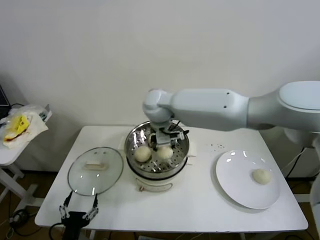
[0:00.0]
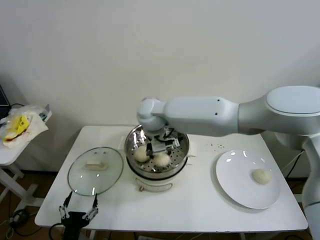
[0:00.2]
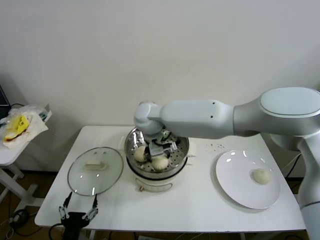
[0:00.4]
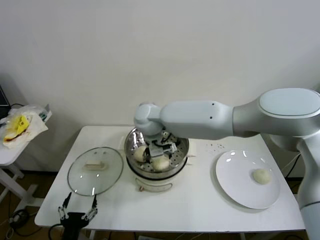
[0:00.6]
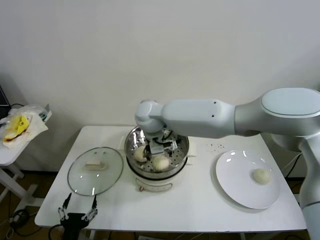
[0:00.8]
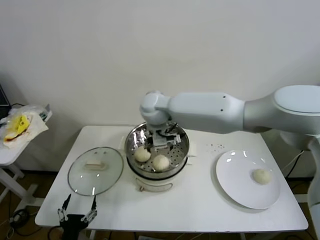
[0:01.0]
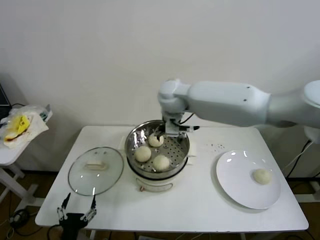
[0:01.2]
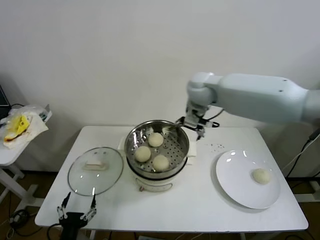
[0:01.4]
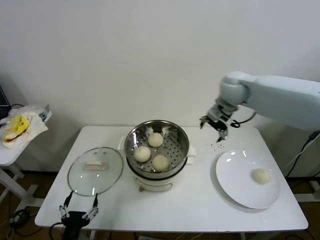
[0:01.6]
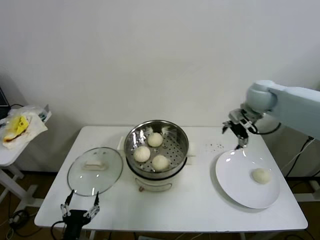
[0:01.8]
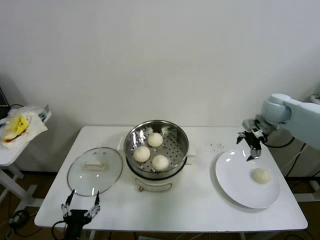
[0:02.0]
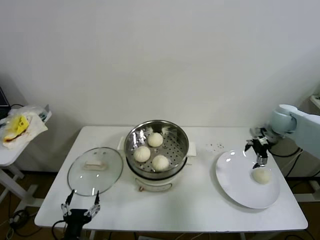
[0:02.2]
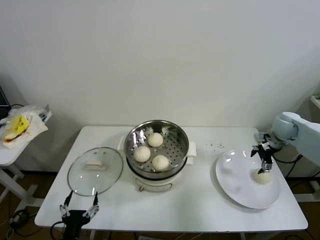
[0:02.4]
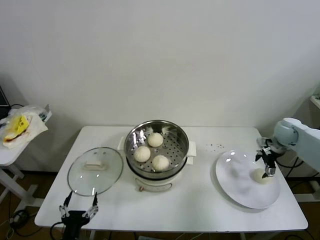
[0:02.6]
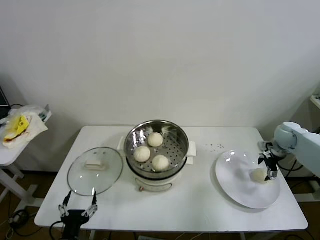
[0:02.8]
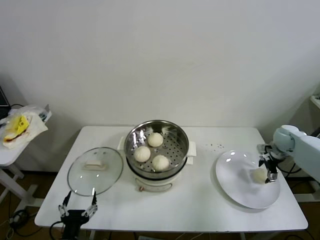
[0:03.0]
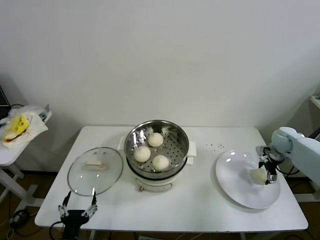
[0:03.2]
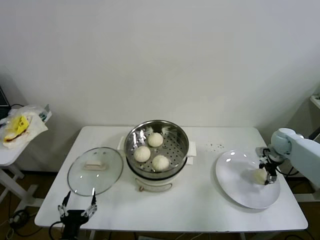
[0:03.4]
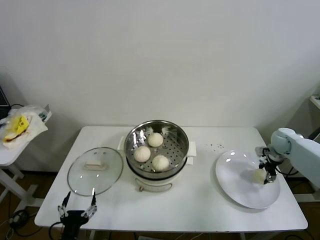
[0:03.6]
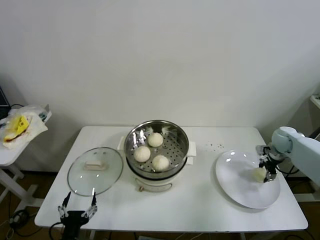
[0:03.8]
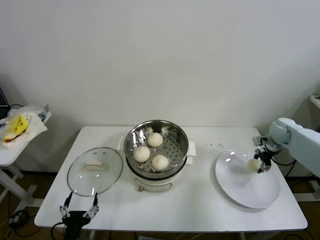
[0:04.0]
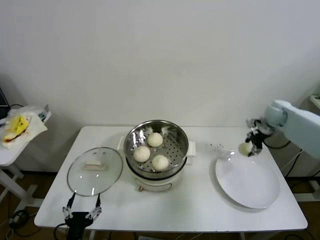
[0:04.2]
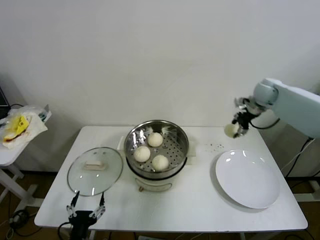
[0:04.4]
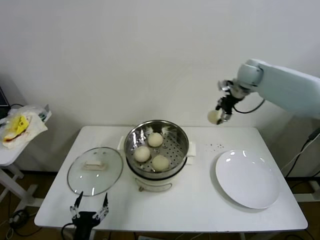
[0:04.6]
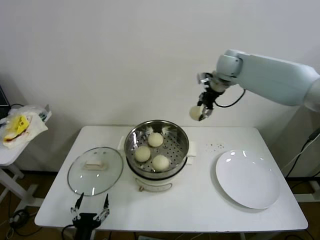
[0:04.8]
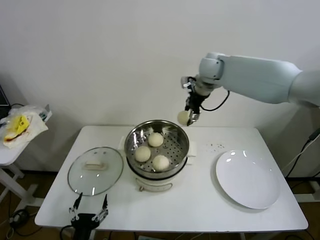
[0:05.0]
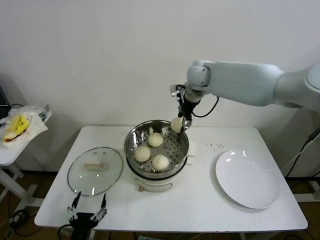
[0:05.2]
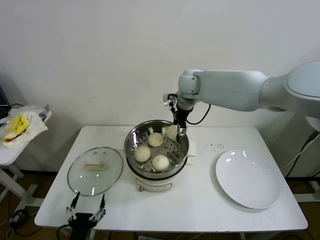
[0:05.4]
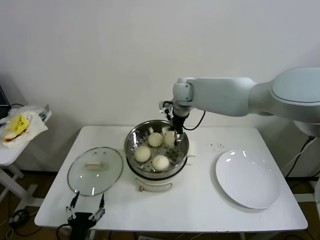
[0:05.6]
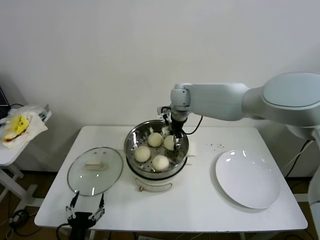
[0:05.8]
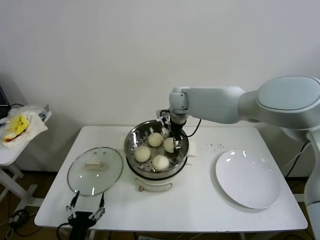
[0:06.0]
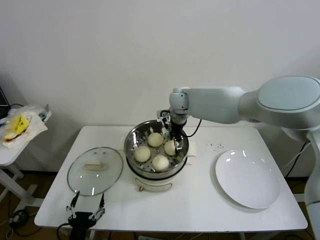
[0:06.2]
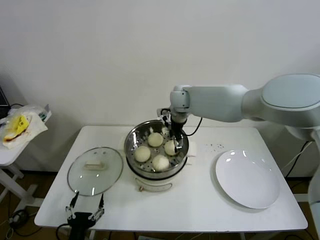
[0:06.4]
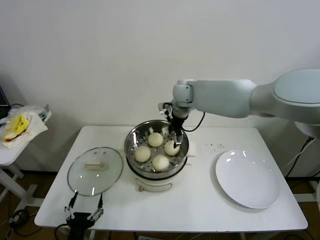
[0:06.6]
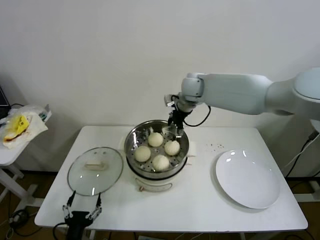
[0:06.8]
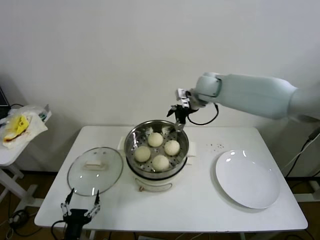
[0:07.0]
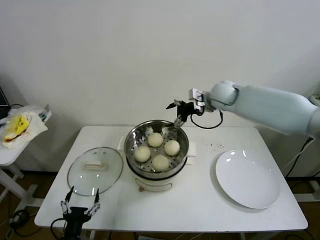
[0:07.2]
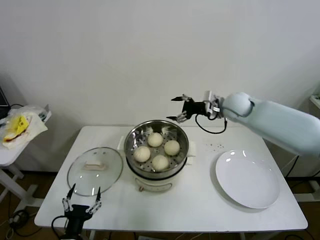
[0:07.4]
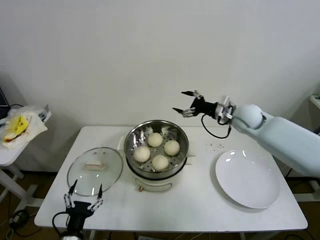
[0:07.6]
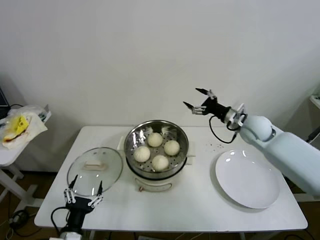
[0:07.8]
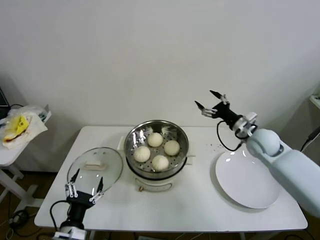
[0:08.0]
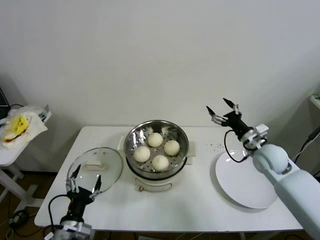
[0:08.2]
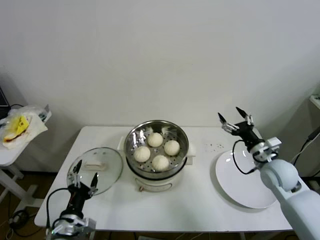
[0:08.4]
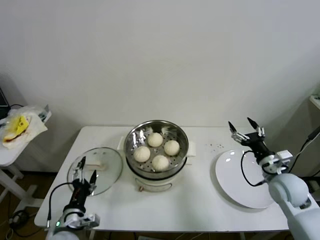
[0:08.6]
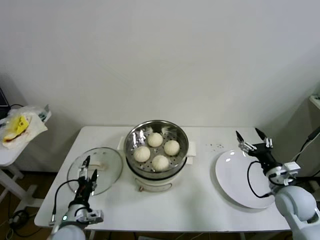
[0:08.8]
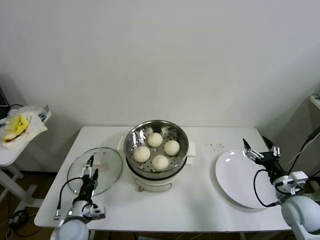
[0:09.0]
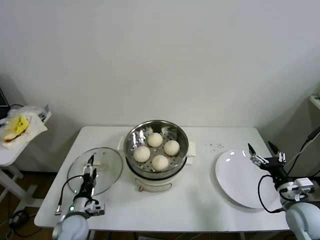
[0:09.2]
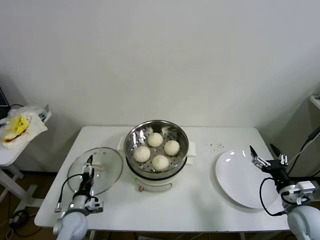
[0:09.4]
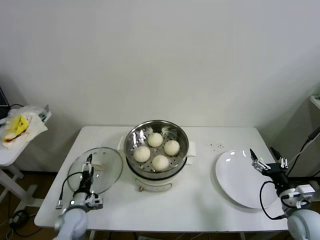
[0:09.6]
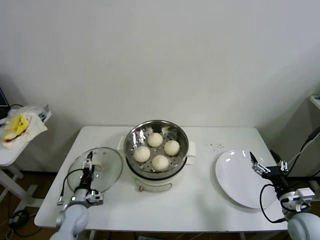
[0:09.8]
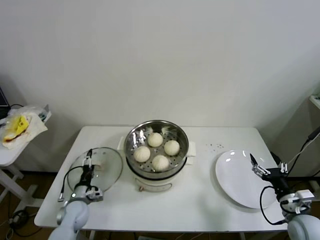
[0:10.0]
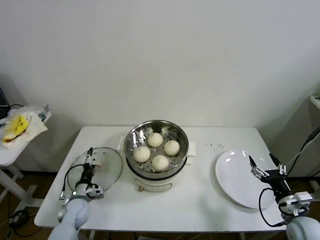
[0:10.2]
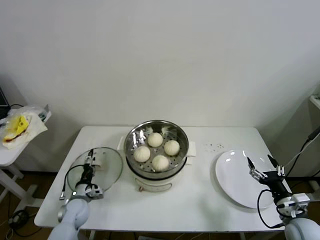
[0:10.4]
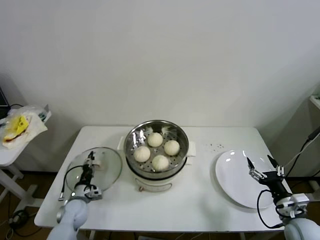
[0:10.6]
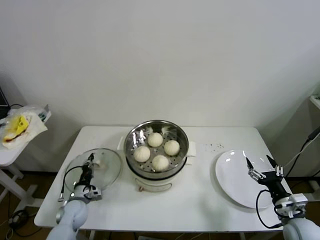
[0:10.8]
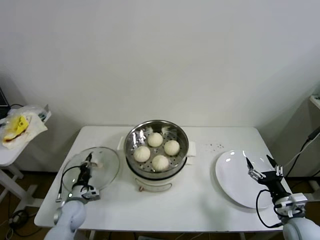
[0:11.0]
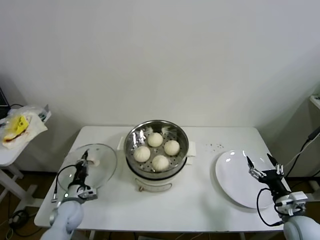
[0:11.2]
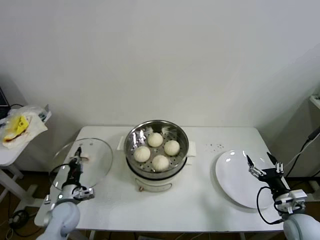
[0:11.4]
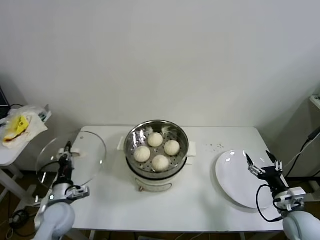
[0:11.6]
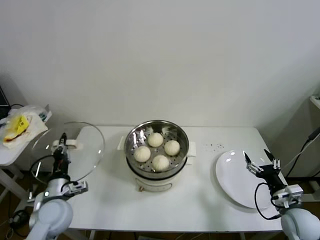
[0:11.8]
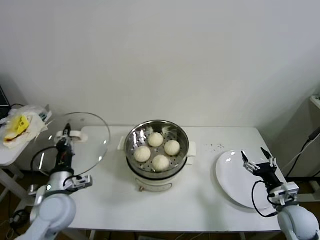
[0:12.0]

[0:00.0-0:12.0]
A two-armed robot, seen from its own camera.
Step, 0:00.6 to 0:03.2: Grasp the baozi in the plate with right gripper.
Step, 0:03.6 to 0:06.0: Place the baozi on the steamer with right gripper.
Step, 0:06.2 to 0:10.8: Grasp the pot lid with left gripper.
0:00.0 to 0:01.6: The right gripper shifts roughly 25 cm to the right, and opens up.
0:01.6 to 0:03.0: The right gripper travels to the right and downward by approximately 30 cm.
0:03.0 to 0:04.4: The right gripper shifts some 20 cm upward, to the left and forward, and closes up.
0:04.4 to 0:06.0: The right gripper travels to the left by some 30 cm.
0:06.0 to 0:07.6: The right gripper heads to the right, covering about 20 cm, and opens up.
0:07.6 to 0:09.0: The left gripper is displaced forward by about 10 cm, while the right gripper travels backward, downward and to the right by roughly 30 cm.
0:09.0 to 0:10.4: The left gripper goes roughly 10 cm forward and downward. Meanwhile the right gripper moves backward, approximately 5 cm.
0:10.4 to 0:12.0: The left gripper travels upward by about 20 cm, and closes up.

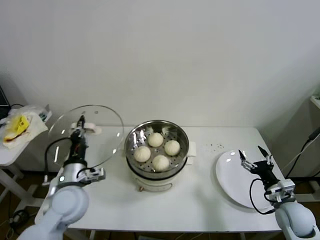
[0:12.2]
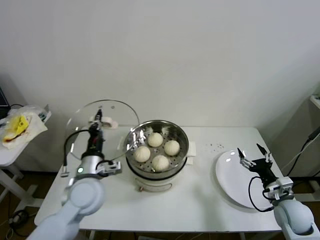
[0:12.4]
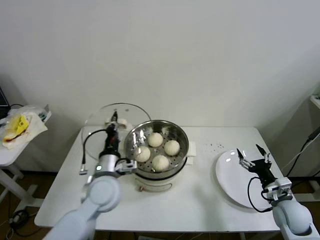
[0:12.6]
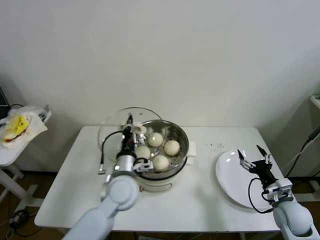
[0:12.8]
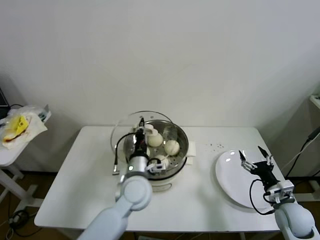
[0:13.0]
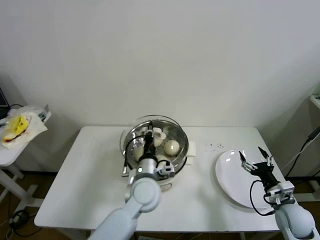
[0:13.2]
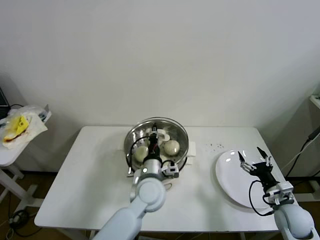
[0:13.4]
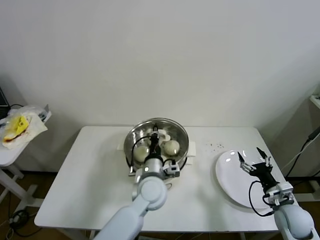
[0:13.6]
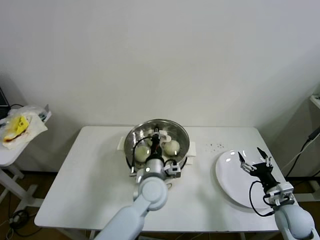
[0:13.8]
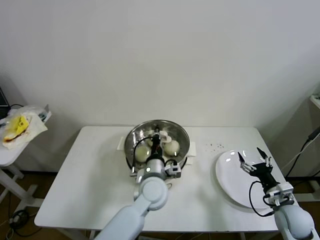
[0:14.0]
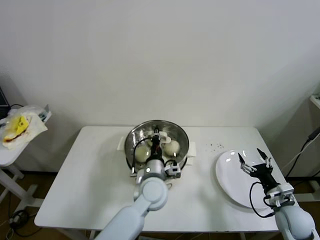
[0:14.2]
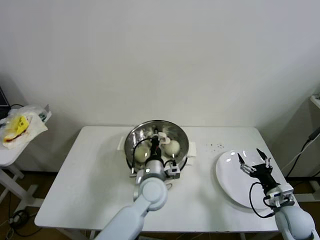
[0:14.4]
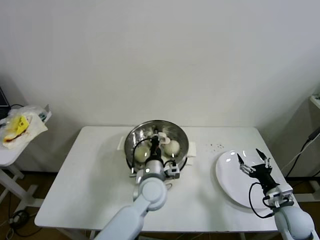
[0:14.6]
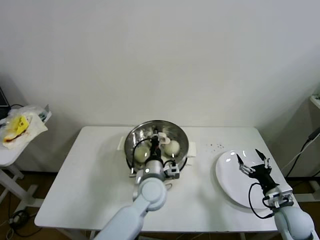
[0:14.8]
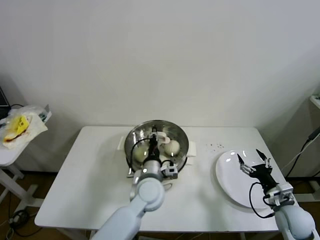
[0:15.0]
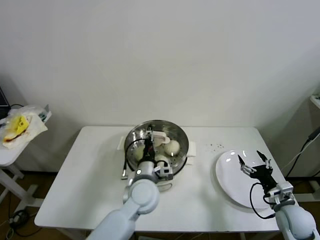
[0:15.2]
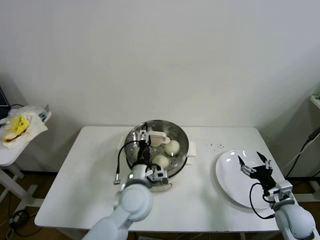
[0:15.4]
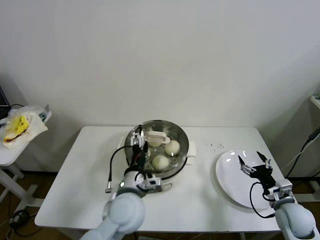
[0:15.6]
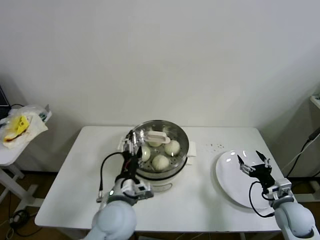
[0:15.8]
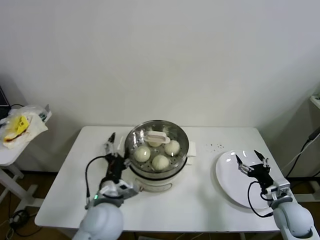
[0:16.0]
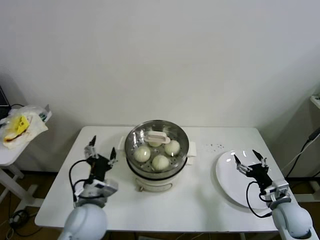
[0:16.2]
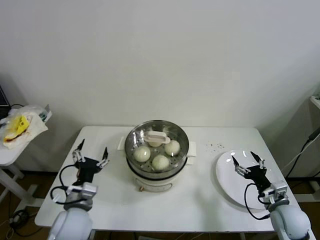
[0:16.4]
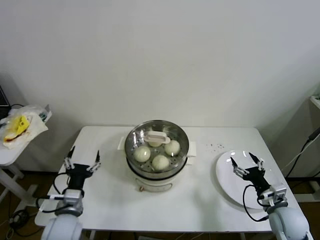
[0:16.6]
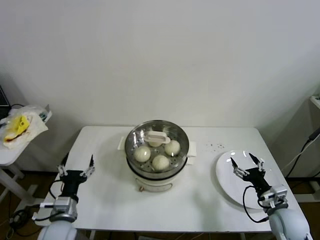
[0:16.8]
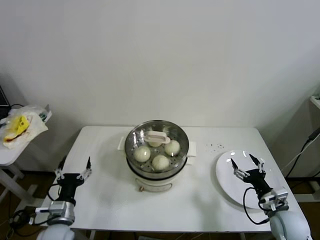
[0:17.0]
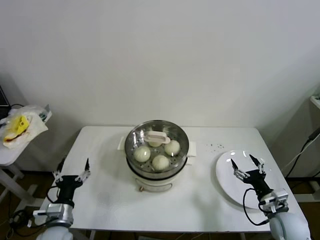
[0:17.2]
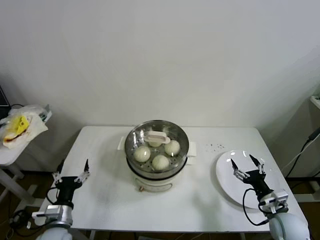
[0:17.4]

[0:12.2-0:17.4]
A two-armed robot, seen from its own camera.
Step, 0:12.2 to 0:14.8: Place the pot lid on the steamer with left gripper.
0:12.2 to 0:14.0: The left gripper travels to the right by about 25 cm.
0:14.0 to 0:15.6: The left gripper heads to the left and backward, covering approximately 10 cm, and opens.
0:15.6 to 0:17.4: The left gripper is displaced to the left and downward by approximately 25 cm.

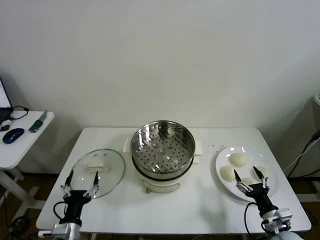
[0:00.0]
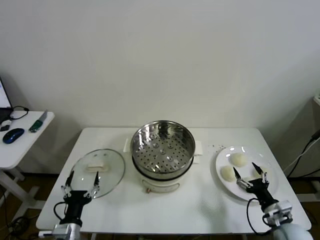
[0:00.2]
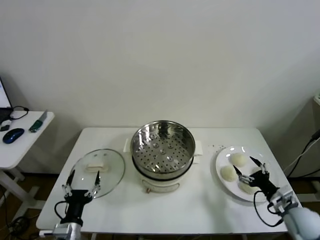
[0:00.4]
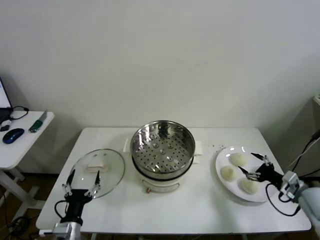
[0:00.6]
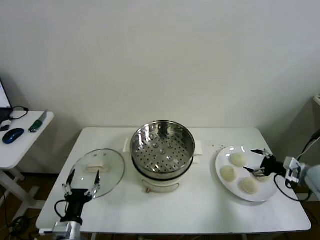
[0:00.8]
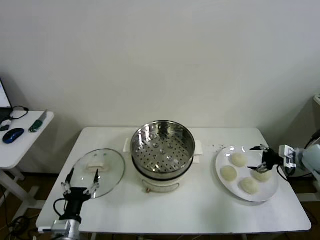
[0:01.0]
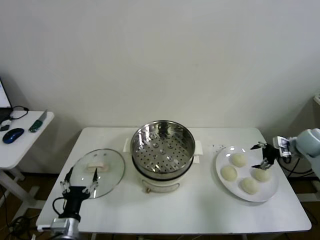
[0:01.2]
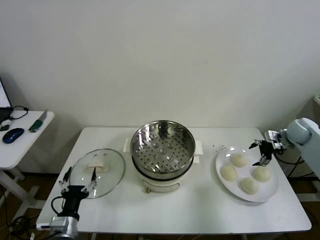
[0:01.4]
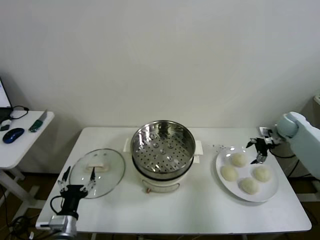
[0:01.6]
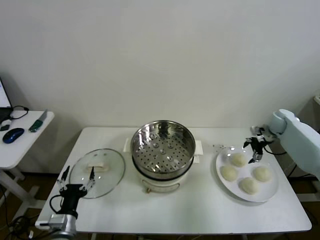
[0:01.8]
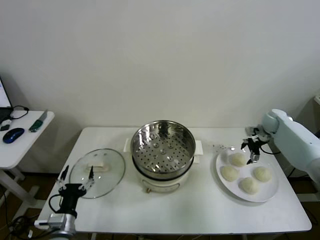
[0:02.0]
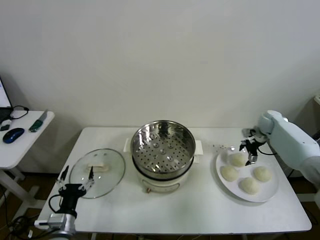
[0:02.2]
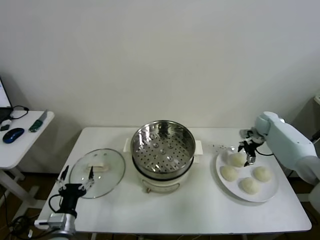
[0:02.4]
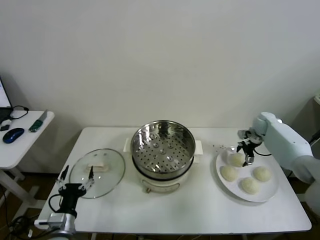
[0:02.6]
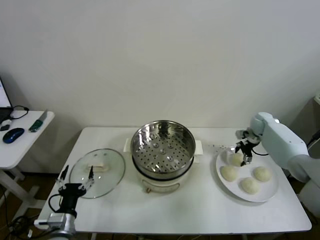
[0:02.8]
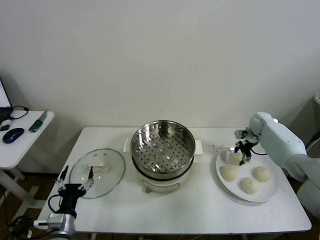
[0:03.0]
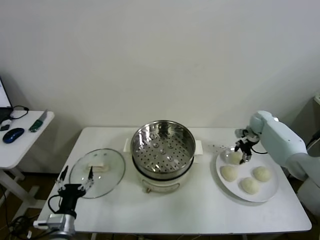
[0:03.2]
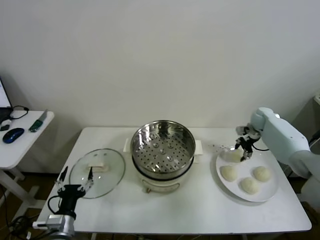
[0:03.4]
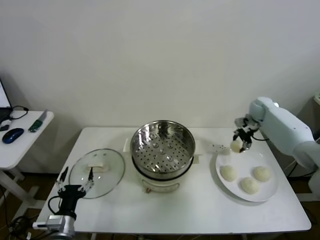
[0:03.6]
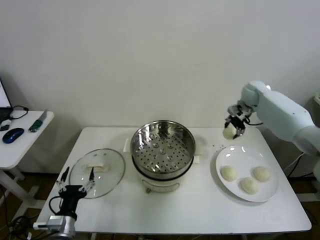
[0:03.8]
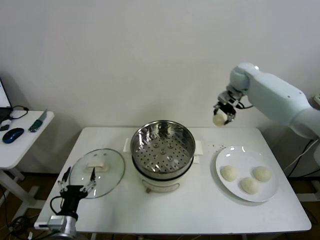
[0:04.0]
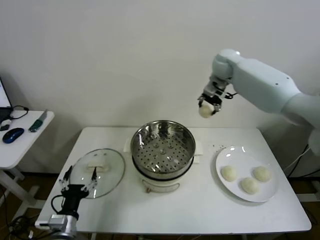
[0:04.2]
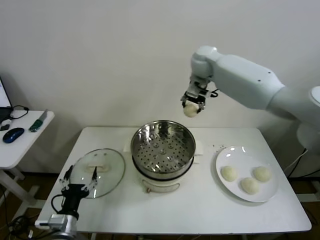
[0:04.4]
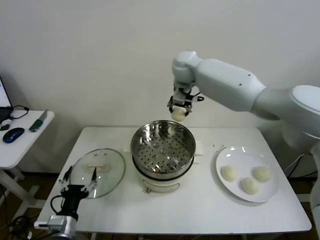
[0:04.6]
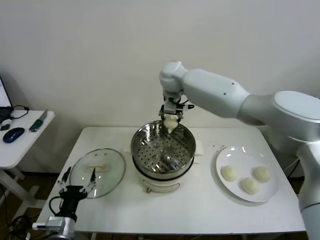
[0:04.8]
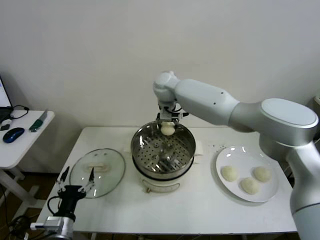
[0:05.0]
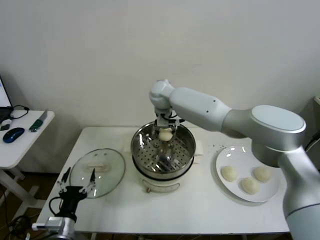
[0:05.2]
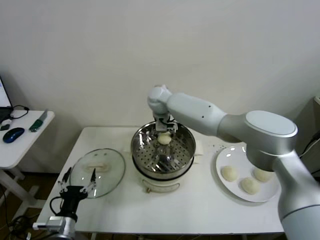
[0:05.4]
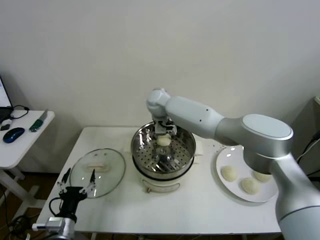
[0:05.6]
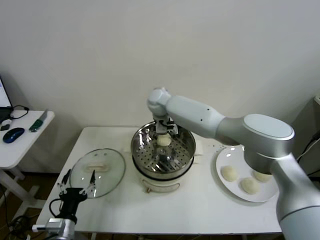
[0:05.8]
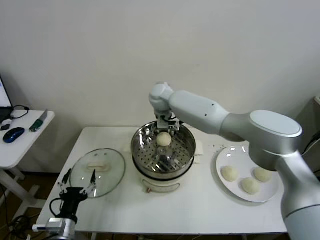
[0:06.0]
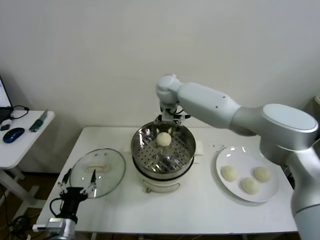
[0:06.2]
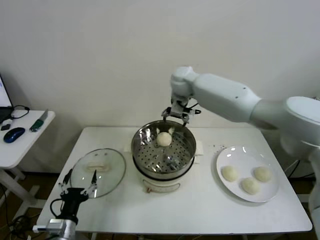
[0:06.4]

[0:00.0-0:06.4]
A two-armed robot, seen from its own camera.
Step, 0:00.0 to 0:02.8: Grasp the baozi in the plate with right gripper.
Step, 0:03.0 to 0:05.4: Place the baozi on the steamer with right gripper.
0:01.6 to 0:03.2: The right gripper shifts roughly 10 cm to the left and forward, and closes its fingers.
0:03.2 to 0:04.8: The right gripper travels to the left and upward by some 50 cm.
0:04.8 to 0:06.4: The right gripper goes downward and returns, about 10 cm each way, and opens up.
